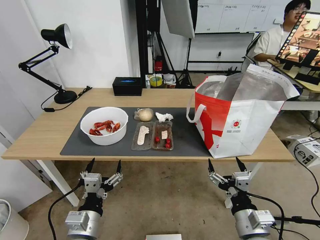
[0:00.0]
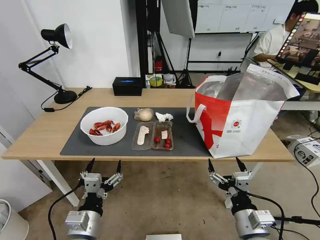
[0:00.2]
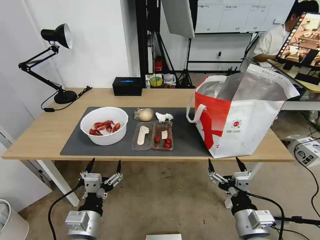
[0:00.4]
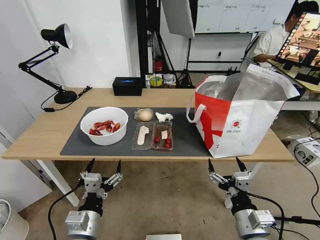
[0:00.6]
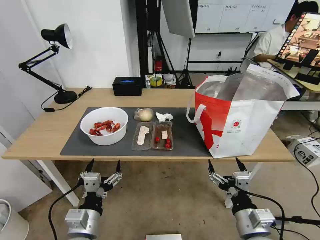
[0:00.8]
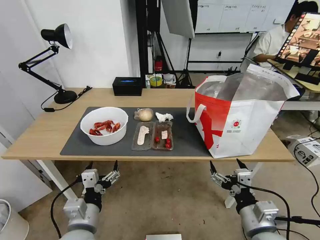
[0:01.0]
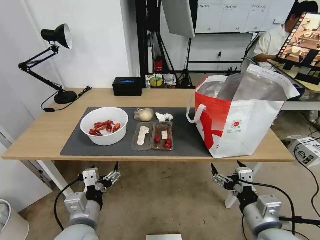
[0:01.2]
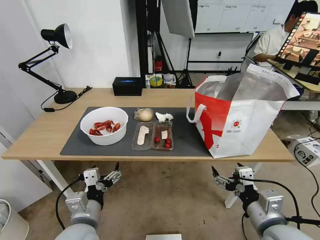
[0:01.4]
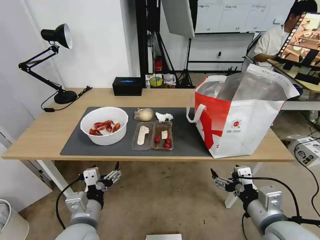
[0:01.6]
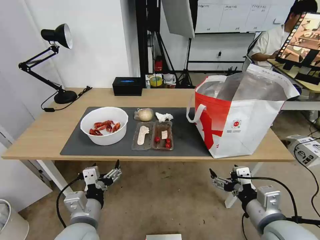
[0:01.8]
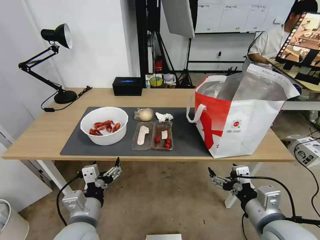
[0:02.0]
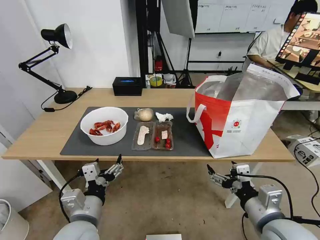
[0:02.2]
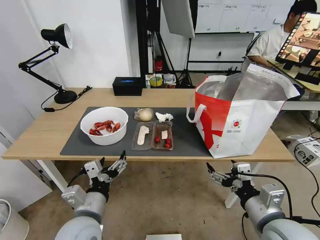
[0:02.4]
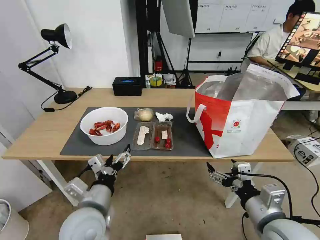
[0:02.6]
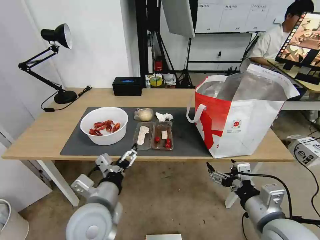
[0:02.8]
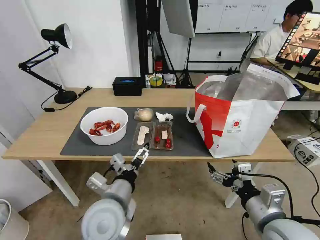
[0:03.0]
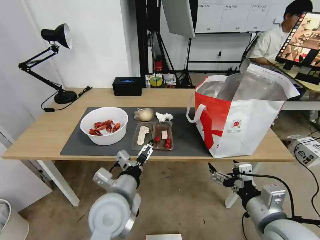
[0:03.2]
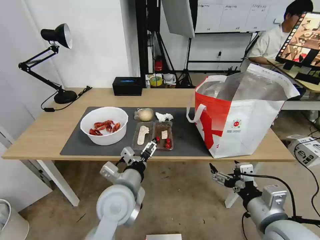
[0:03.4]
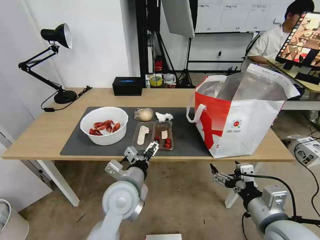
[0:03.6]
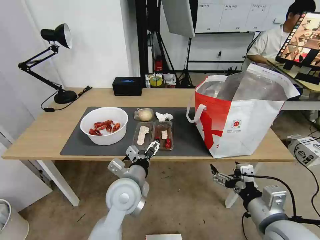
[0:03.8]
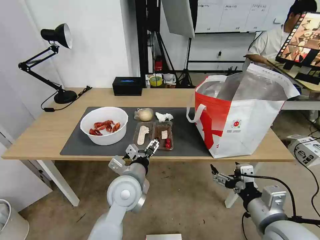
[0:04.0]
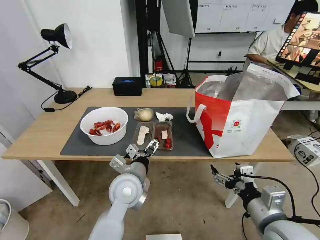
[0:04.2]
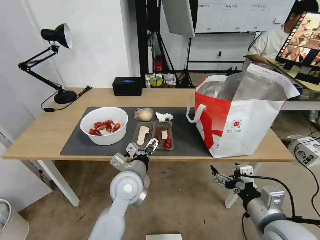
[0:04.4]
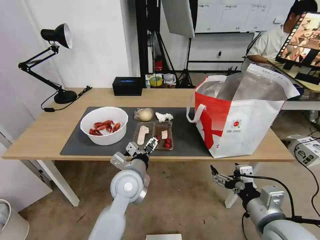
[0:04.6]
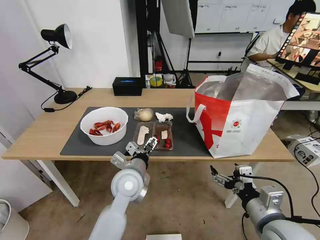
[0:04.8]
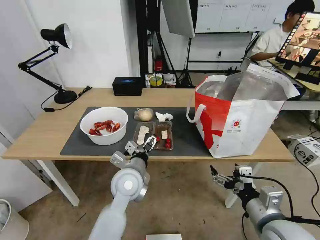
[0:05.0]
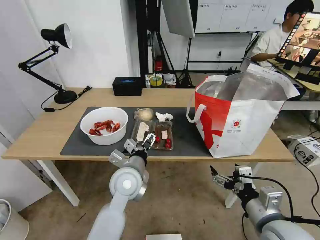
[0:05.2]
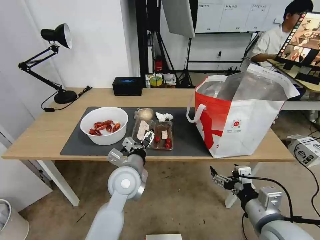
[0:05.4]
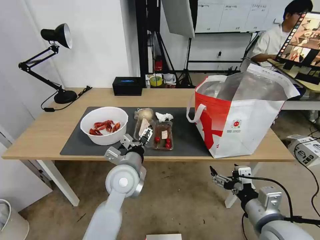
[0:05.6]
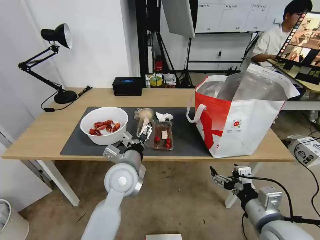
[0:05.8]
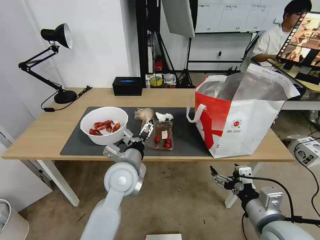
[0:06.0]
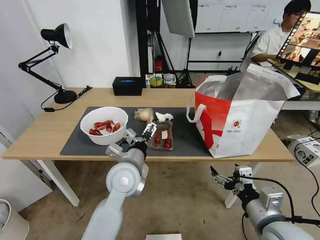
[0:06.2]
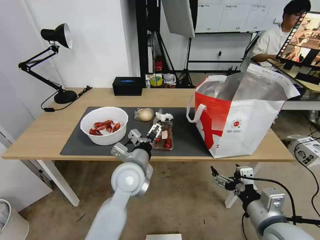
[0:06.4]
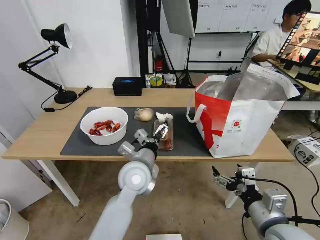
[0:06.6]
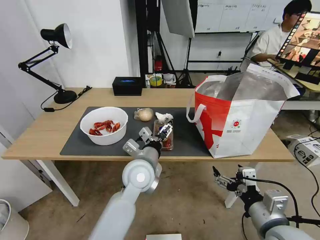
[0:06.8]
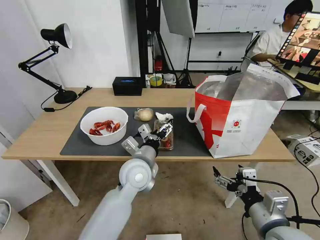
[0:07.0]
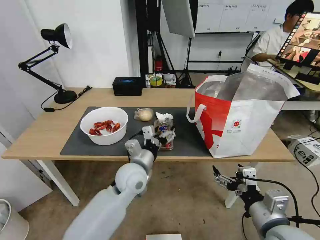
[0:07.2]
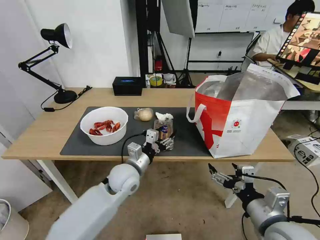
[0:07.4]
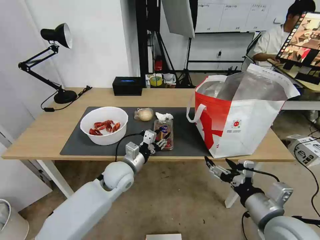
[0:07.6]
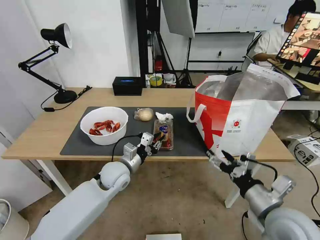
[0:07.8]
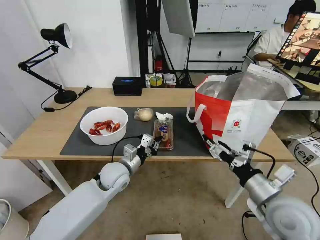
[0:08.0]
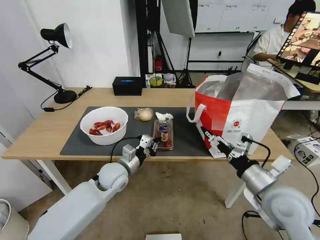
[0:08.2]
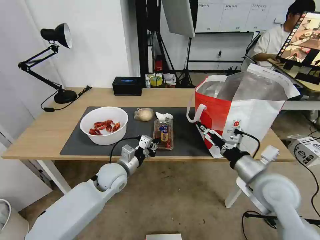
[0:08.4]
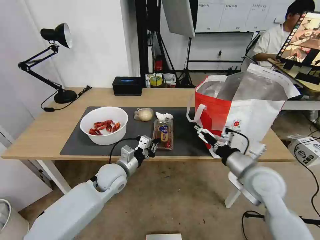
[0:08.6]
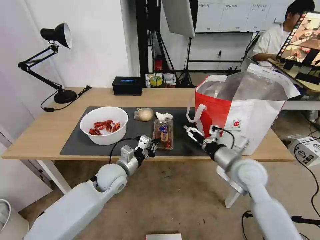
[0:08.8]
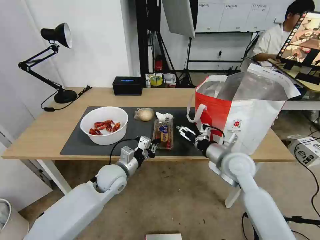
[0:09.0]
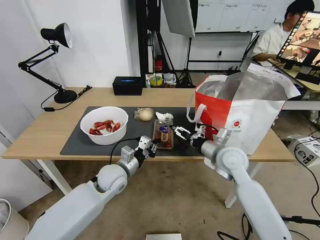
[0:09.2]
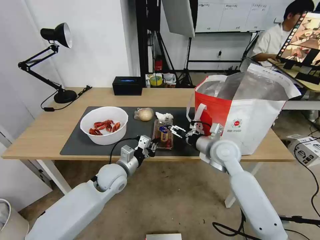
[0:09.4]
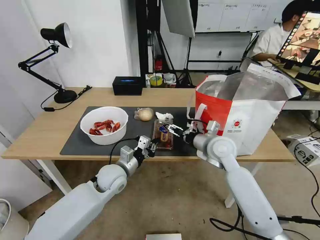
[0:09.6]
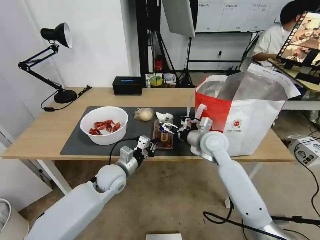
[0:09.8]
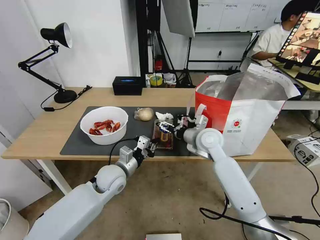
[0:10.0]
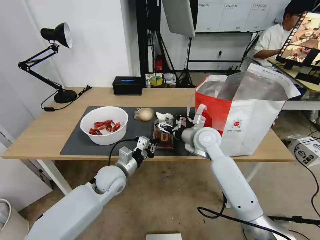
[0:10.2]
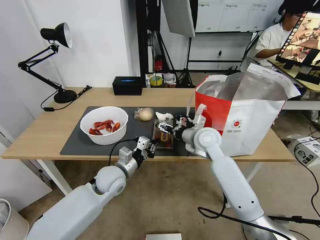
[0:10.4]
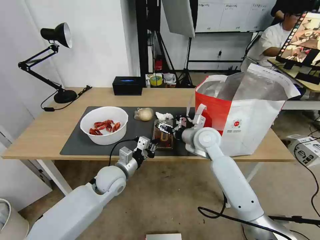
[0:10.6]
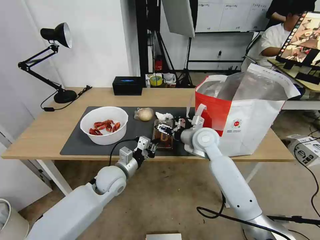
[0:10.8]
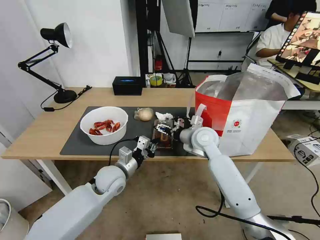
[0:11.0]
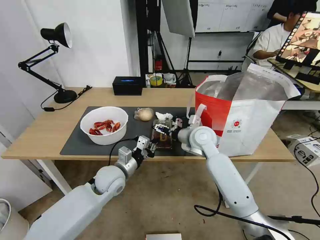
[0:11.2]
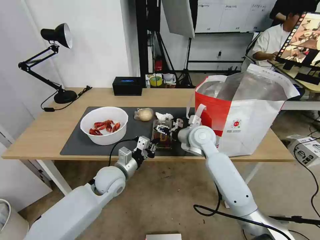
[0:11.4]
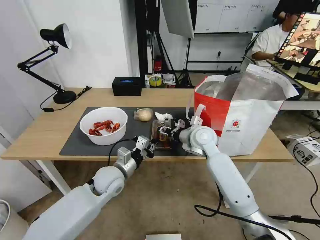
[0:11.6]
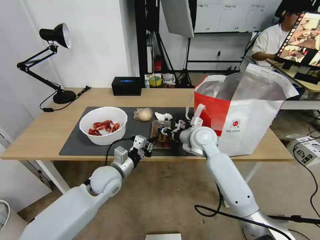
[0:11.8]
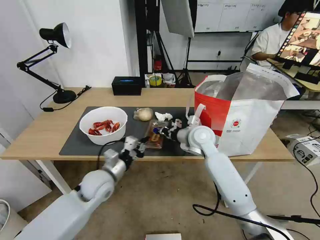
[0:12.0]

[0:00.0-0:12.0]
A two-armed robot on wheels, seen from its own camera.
Task of the whole recording: Pick up the trash from the table and place it into the takeout bag.
0:01.6 to 0:03.0: The left gripper goes some 5 cm to the right.
0:03.0 to 0:04.4: The left gripper is displaced forward by roughly 10 cm.
0:04.4 to 0:06.0: There are only small adjustments of the grippers.
0:06.0 to 0:07.6: The left gripper shifts approximately 5 cm downward, and closes up.
0:07.6 to 0:09.0: The right gripper travels forward by about 20 cm; the left gripper closes its fingers.
0:09.0 to 0:10.4: The right gripper shifts approximately 10 cm forward and to the left.
0:10.4 to 0:12.0: The right gripper closes its fingers.

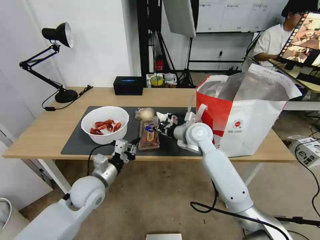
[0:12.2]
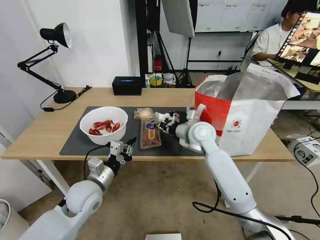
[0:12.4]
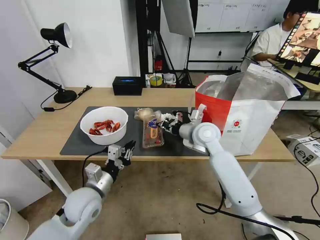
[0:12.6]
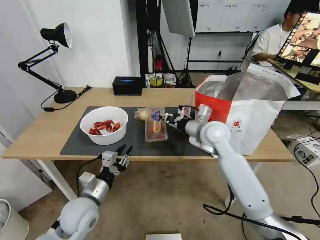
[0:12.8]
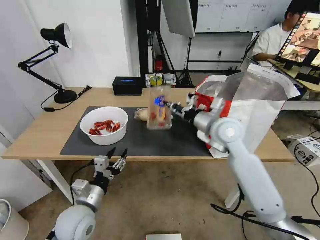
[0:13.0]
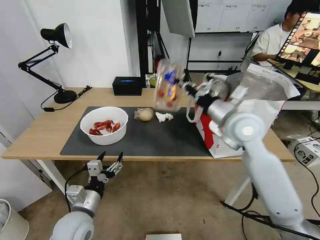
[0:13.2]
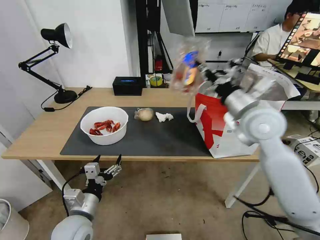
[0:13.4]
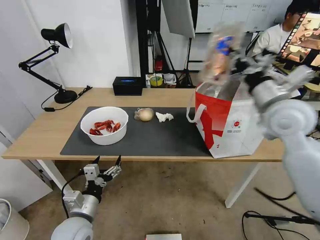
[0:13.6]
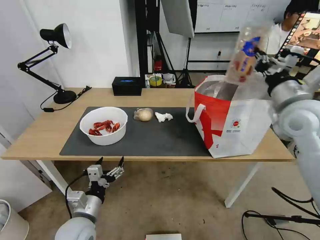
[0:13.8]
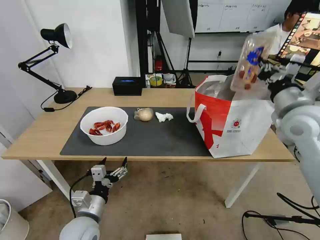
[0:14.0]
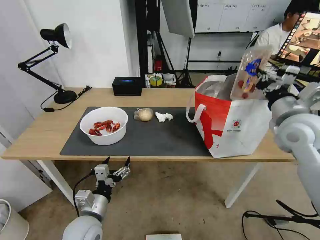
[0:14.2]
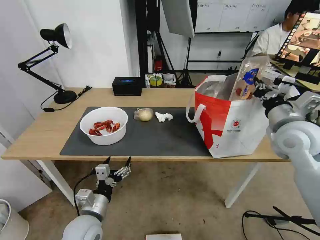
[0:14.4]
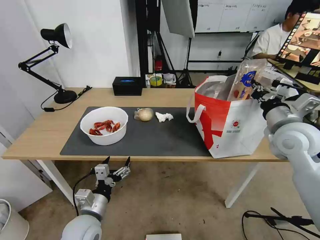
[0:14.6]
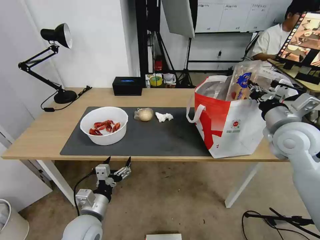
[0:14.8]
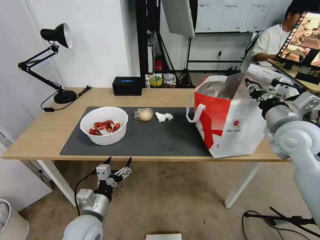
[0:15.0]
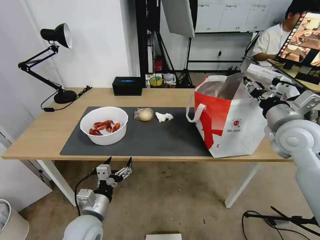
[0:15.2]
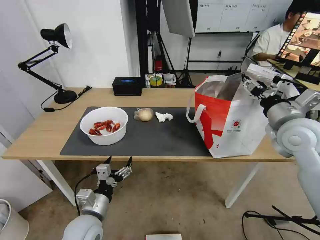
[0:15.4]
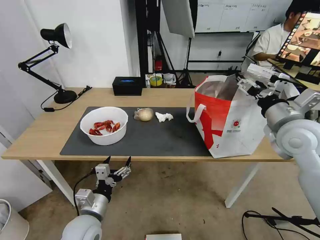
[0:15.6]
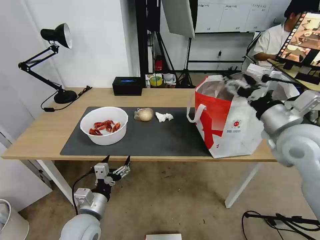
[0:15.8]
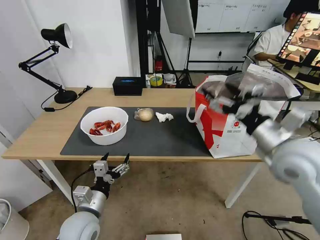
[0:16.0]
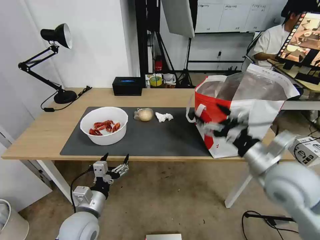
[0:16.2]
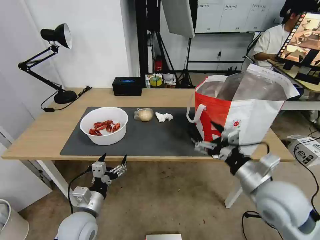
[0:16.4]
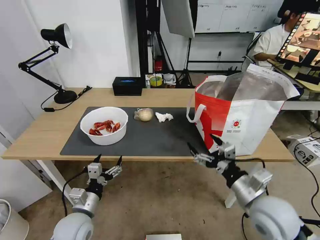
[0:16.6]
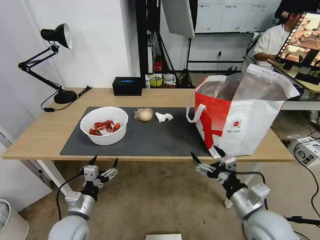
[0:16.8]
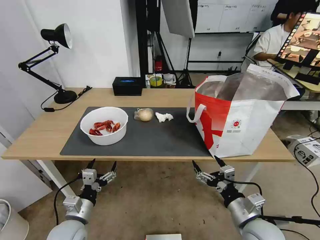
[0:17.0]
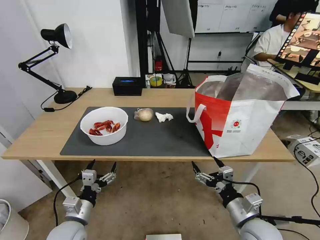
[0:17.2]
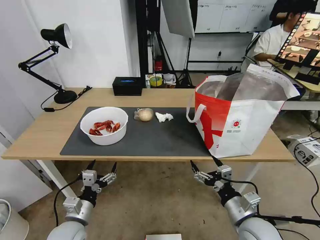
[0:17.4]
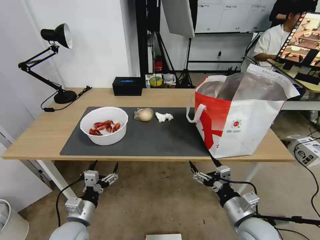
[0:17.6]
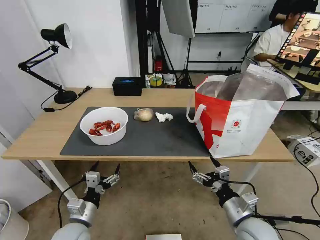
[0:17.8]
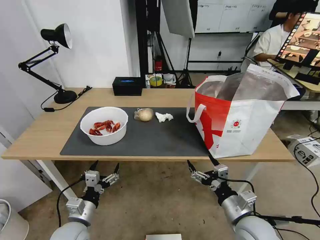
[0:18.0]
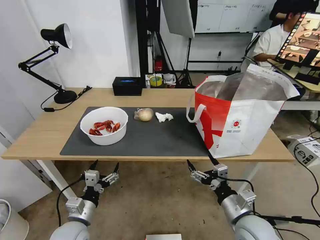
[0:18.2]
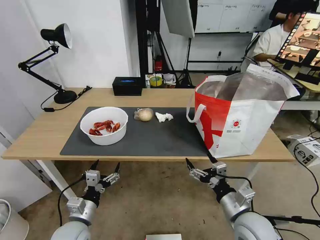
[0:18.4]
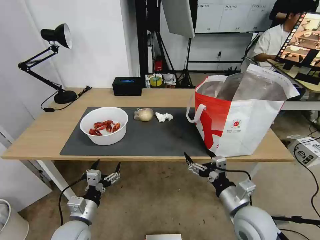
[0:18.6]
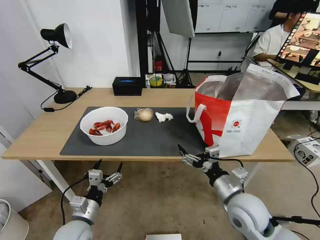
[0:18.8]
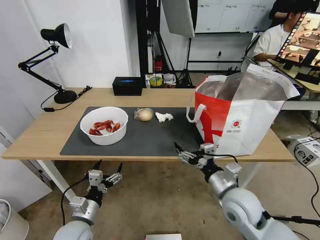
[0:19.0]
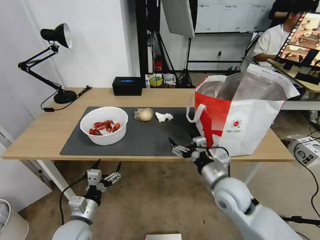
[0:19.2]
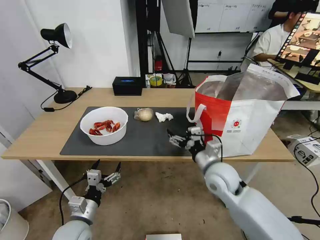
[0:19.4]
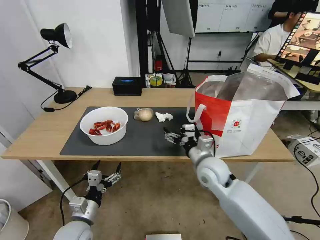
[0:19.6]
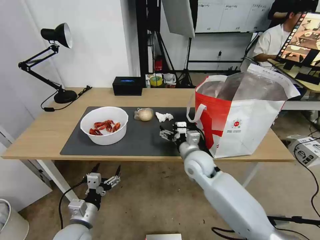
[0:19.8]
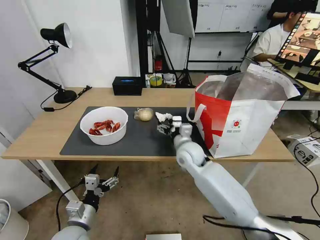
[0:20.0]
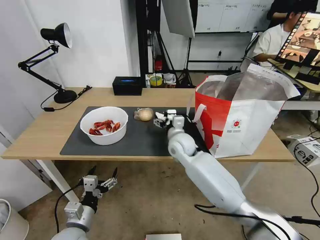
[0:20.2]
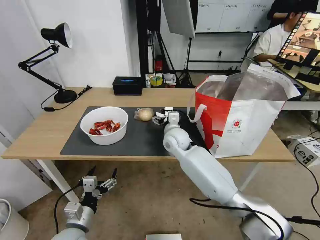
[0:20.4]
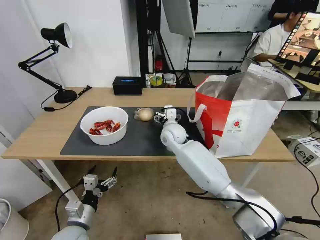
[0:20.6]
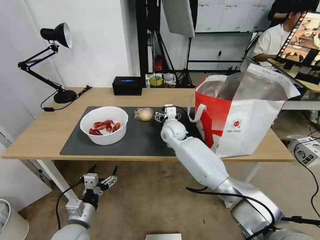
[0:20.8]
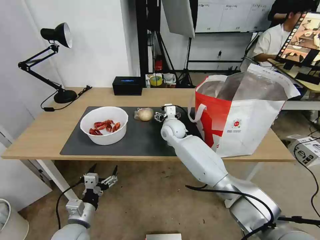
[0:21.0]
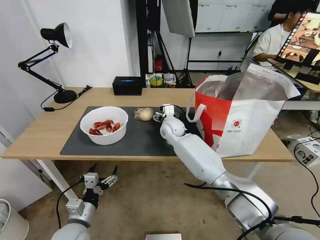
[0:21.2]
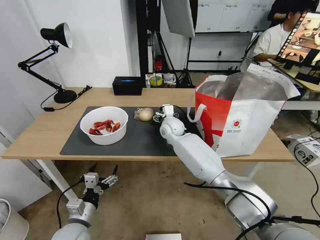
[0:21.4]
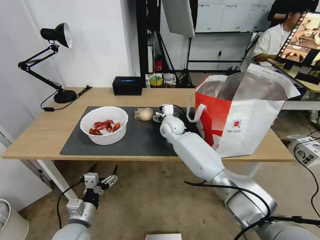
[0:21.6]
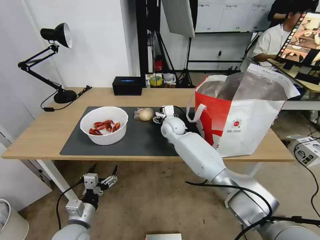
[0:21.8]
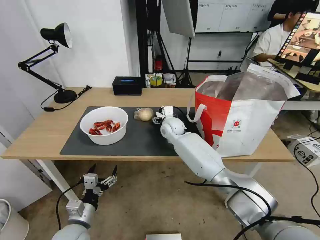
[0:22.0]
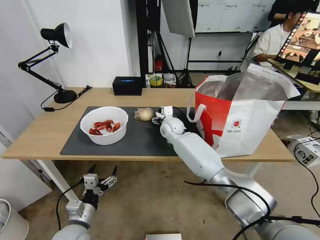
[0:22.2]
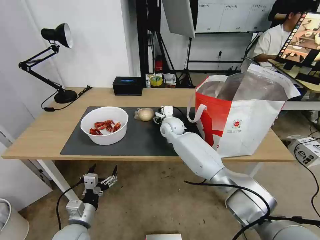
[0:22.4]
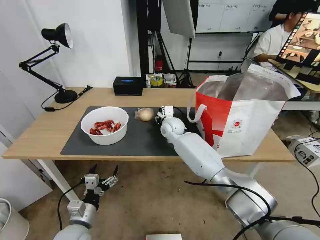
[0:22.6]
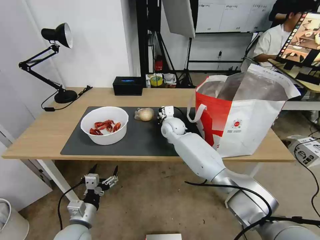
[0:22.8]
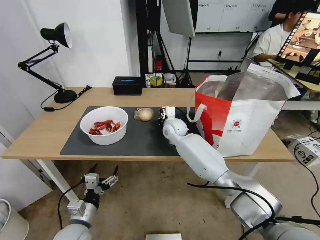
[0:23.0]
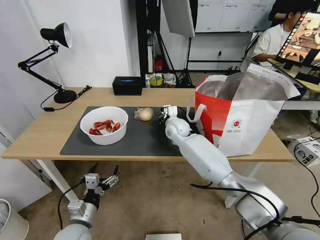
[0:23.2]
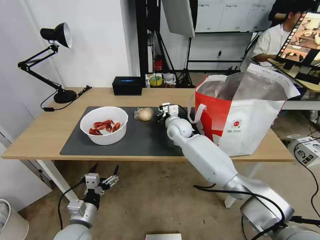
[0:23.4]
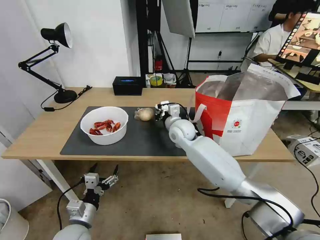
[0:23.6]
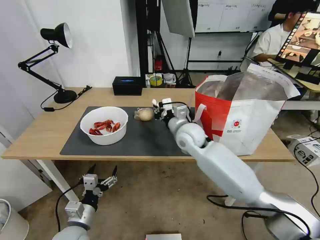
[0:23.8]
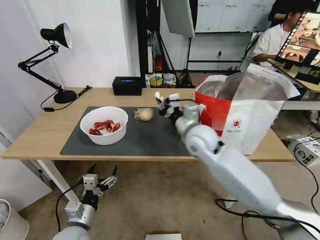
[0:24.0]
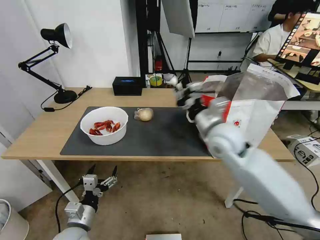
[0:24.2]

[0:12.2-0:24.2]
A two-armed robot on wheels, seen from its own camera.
Task of the whole recording: Pick up the trash from the table and place it into the takeout bag.
0:12.2 to 0:13.8: The left gripper goes about 10 cm backward, and opens its fingers. Meanwhile the right gripper heads to the right, upward and backward, covering about 25 cm.
0:13.8 to 0:15.2: The right gripper moves roughly 5 cm, and opens its fingers.
0:15.2 to 0:16.6: The right gripper is displaced backward, downward and to the left by some 20 cm, and opens up.
0:16.6 to 0:18.2: The right gripper heads downward, covering some 10 cm.
0:18.2 to 0:19.8: The right gripper shifts approximately 25 cm forward and to the left.
0:19.8 to 0:21.2: The right gripper goes about 20 cm forward and to the left.
0:21.2 to 0:22.6: The right gripper closes up.
0:22.6 to 0:24.2: The right gripper goes approximately 25 cm backward, upward and to the right, and closes up.
